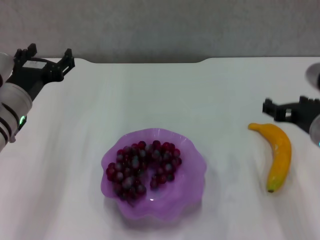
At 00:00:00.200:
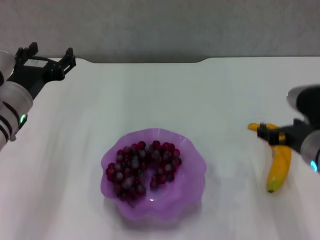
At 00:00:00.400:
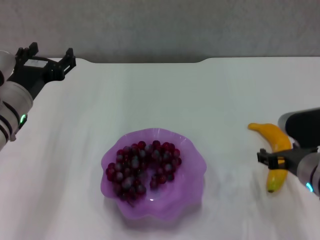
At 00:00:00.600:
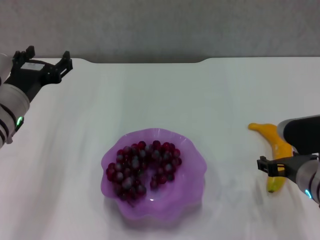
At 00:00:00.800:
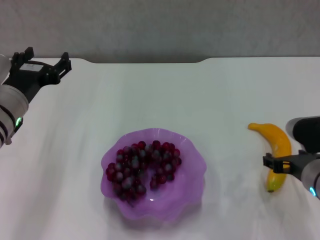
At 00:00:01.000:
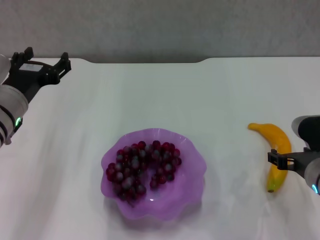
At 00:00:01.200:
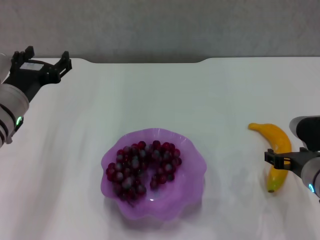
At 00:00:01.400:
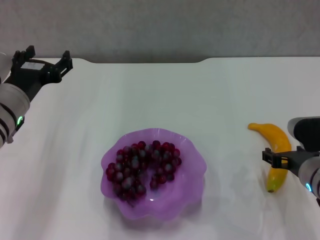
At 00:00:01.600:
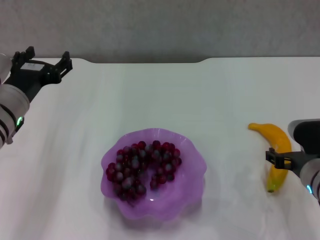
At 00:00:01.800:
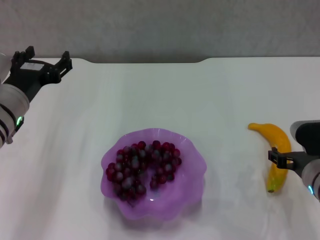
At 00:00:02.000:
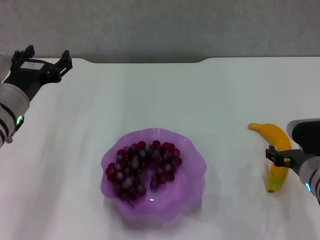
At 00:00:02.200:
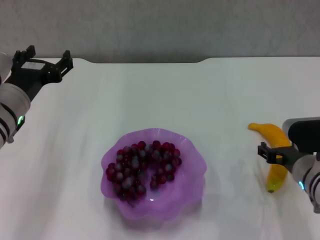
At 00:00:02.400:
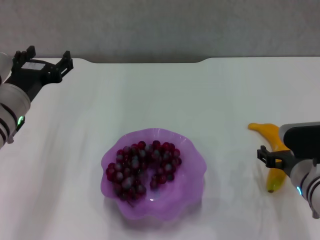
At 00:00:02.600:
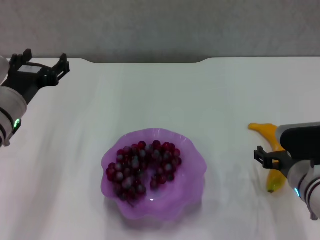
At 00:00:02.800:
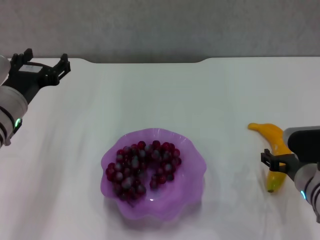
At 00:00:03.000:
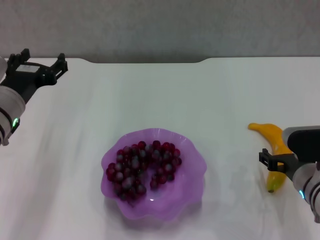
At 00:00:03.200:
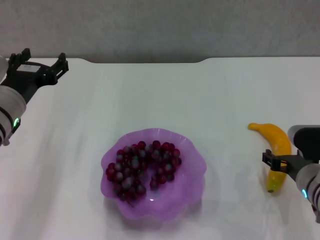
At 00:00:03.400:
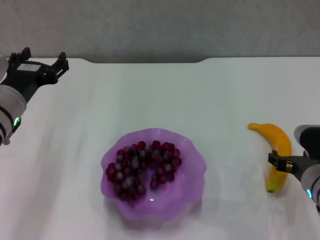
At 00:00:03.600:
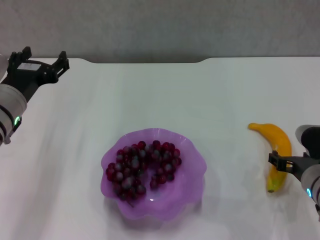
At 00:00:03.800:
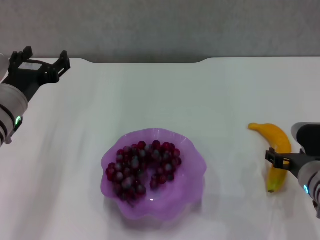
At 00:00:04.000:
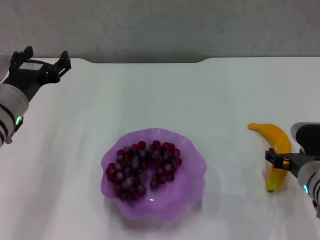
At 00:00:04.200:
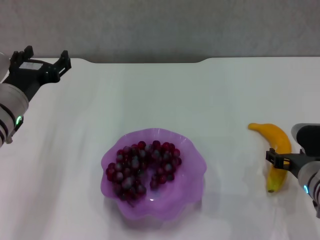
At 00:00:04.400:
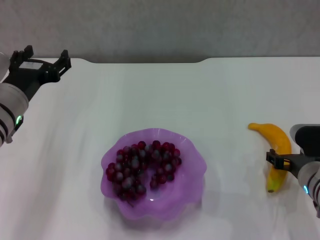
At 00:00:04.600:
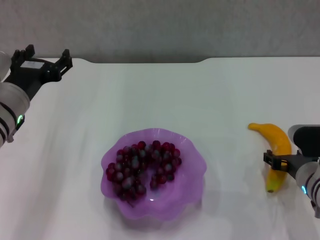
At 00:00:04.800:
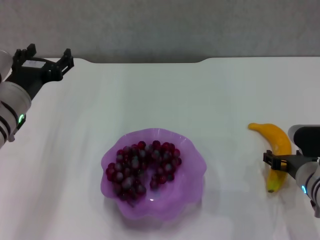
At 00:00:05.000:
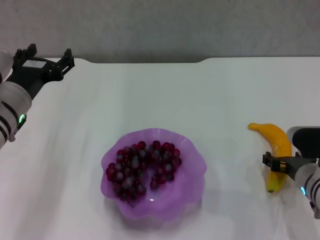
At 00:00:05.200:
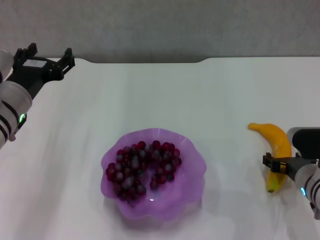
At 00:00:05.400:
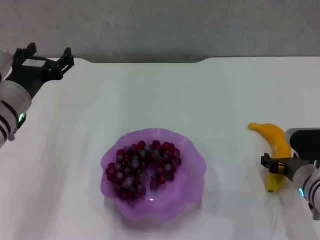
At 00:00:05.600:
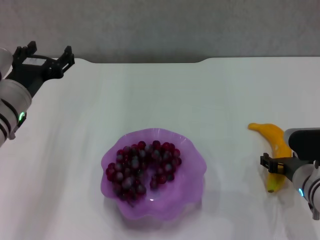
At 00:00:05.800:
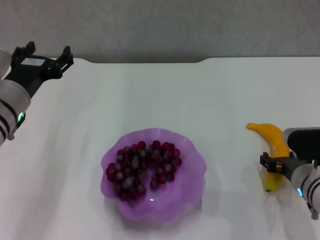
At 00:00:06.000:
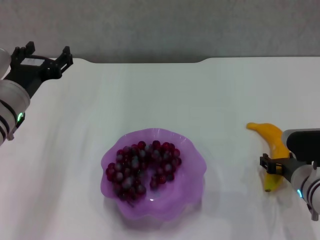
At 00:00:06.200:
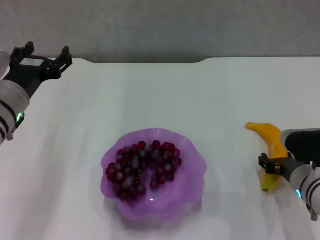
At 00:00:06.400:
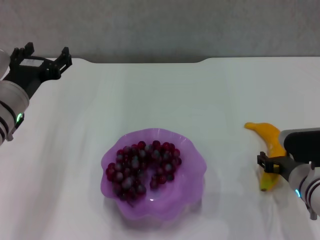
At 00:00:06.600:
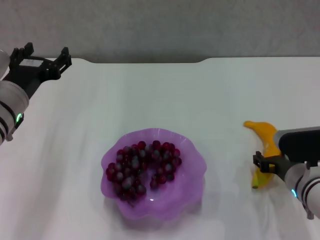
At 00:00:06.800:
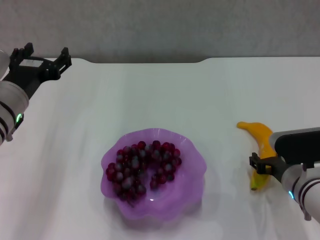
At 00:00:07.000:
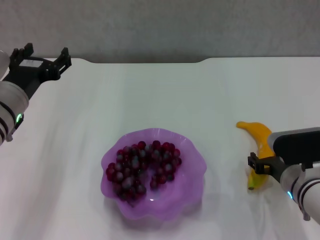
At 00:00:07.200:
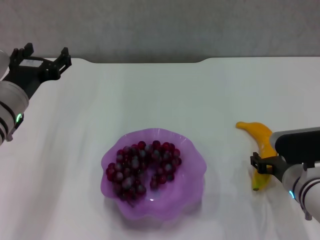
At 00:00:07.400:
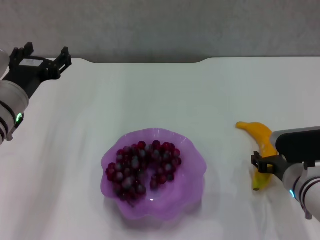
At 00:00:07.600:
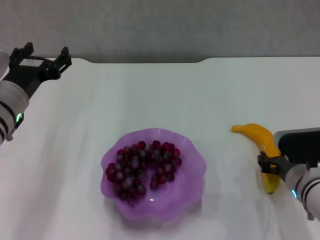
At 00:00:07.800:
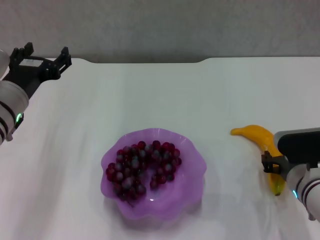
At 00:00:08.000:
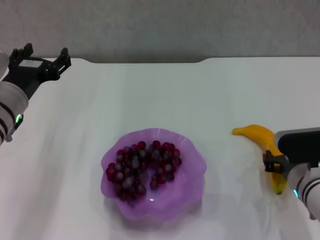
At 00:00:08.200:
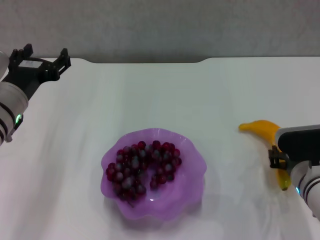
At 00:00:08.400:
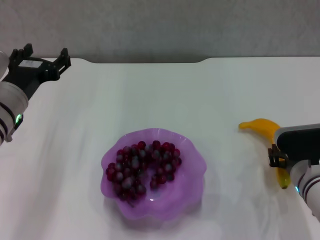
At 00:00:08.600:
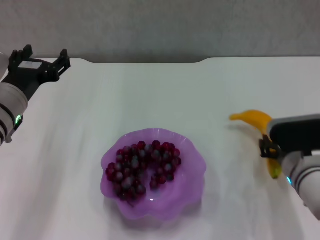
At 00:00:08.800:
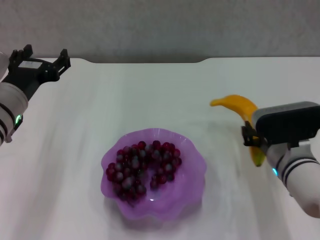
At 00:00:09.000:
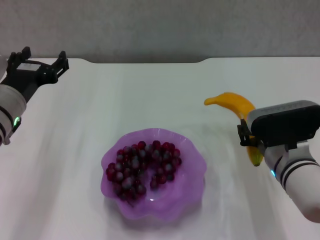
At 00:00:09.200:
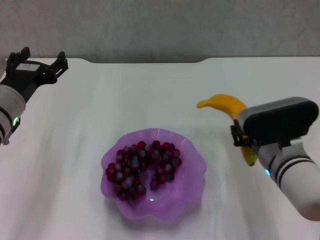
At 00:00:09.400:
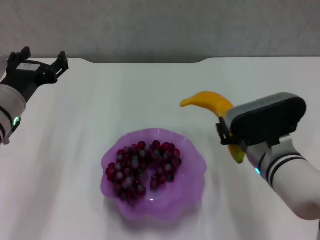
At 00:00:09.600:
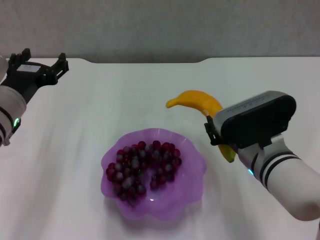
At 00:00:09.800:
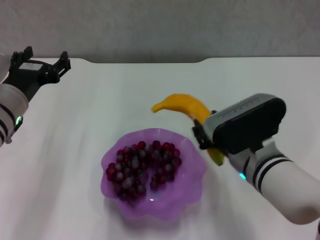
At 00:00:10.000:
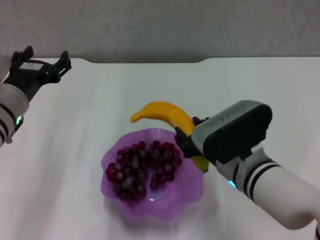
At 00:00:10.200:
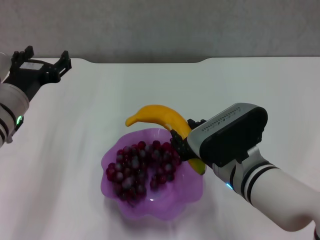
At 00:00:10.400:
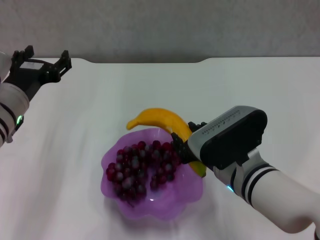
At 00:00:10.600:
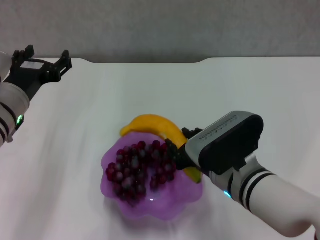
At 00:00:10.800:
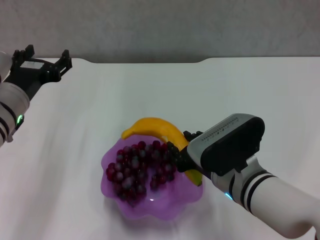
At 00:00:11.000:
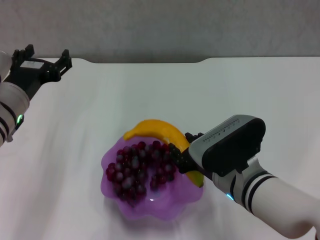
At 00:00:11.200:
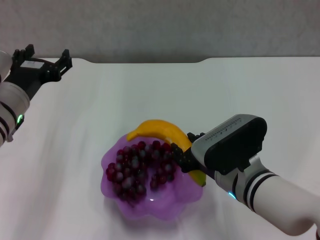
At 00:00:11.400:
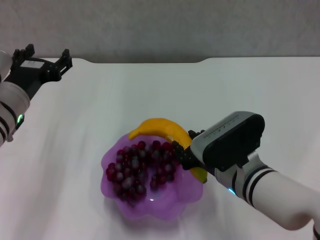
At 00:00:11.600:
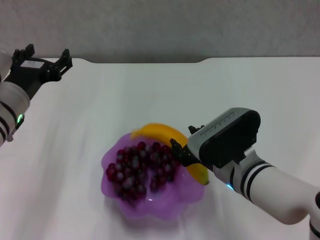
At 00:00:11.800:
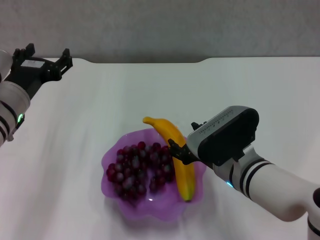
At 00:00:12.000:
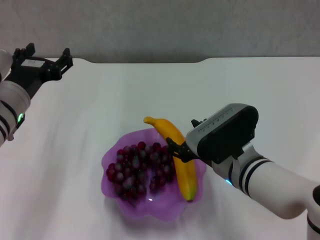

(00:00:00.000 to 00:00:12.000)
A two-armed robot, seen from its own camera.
Step, 00:00:00.000 - 00:00:07.800: Grasp the banana with right gripper.
00:00:00.000 - 00:00:01.600: The right gripper travels downward by some 10 cm.
00:00:01.600 - 00:00:04.400: The grippers move only a little.
00:00:04.400 - 00:00:06.000: The two grippers keep their place.
00:00:06.000 - 00:00:07.600: The right gripper closes.
00:00:07.600 - 00:00:09.000: The right gripper heads upward and to the left, covering some 5 cm.
00:00:09.000 - 00:00:10.400: The right gripper shifts about 5 cm to the left.
00:00:10.400 - 00:00:12.000: The right gripper opens.

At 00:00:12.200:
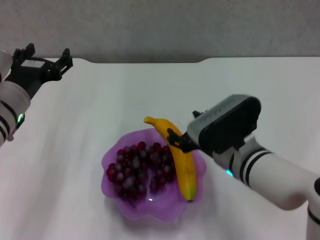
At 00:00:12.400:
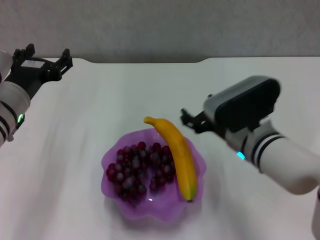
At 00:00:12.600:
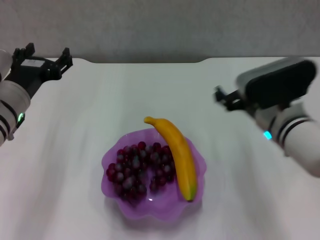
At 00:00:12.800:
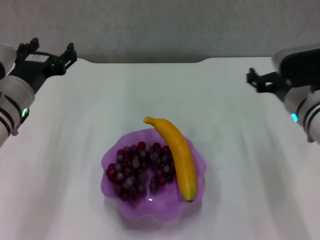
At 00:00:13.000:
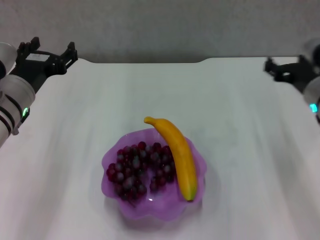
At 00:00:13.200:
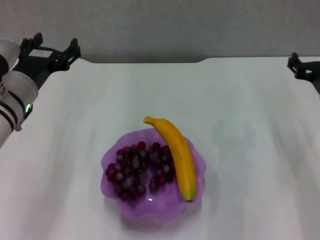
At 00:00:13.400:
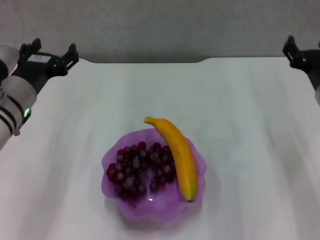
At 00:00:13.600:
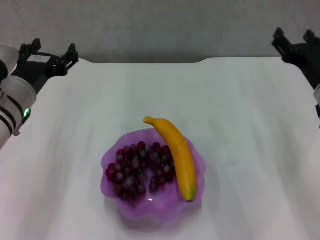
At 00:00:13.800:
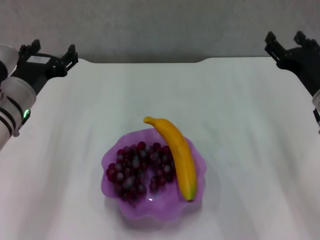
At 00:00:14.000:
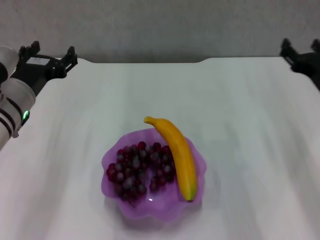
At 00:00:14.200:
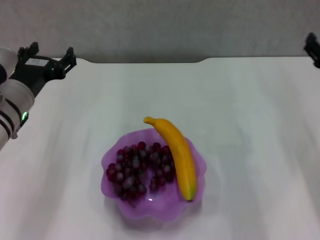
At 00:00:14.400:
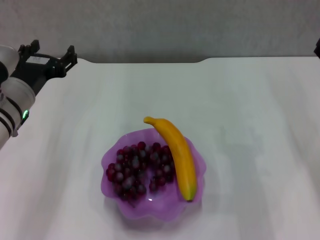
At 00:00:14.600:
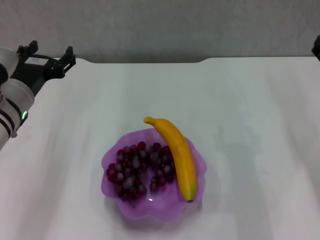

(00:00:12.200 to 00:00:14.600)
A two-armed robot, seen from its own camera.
00:00:12.200 - 00:00:13.400: The right gripper heads to the right and forward, covering approximately 15 cm.
00:00:13.400 - 00:00:14.600: The right gripper goes approximately 5 cm to the right.
